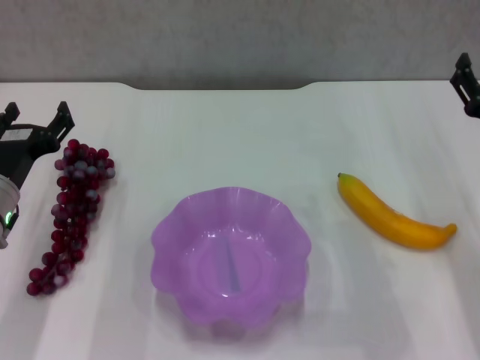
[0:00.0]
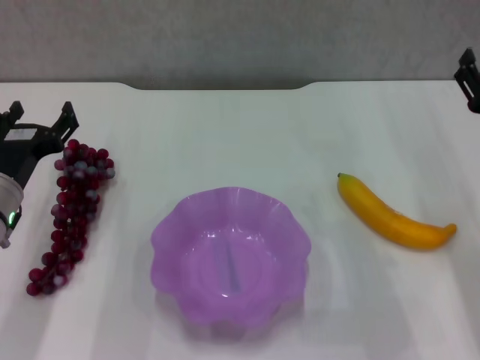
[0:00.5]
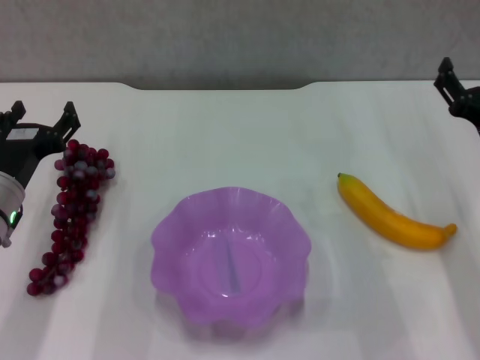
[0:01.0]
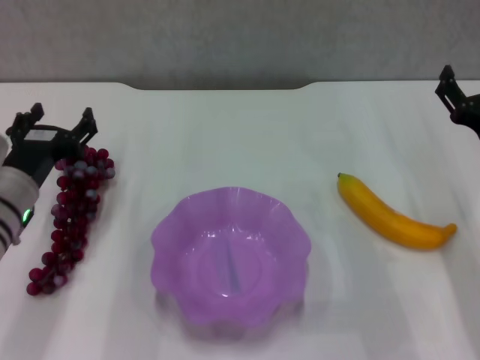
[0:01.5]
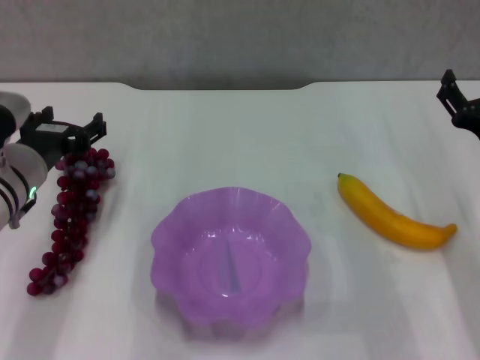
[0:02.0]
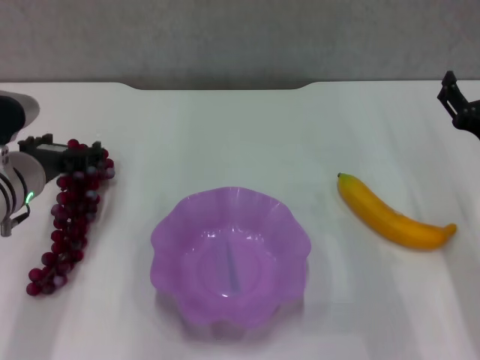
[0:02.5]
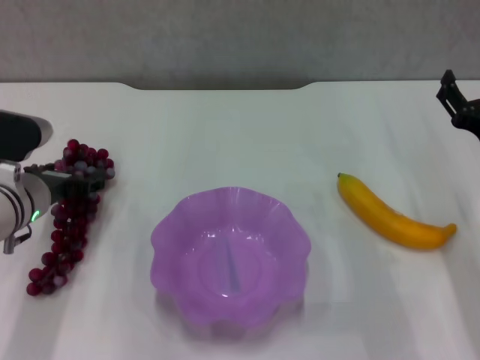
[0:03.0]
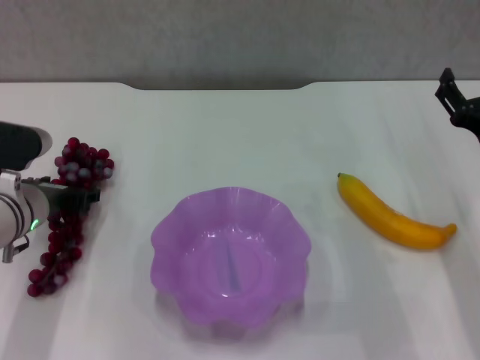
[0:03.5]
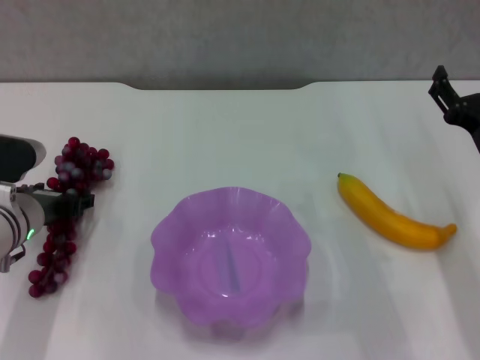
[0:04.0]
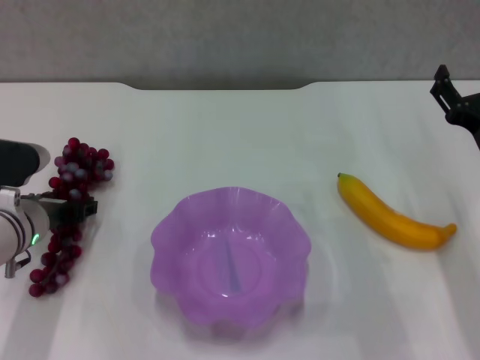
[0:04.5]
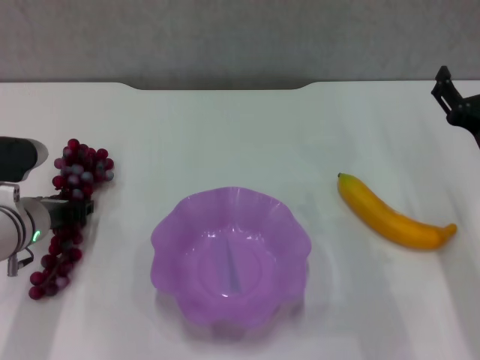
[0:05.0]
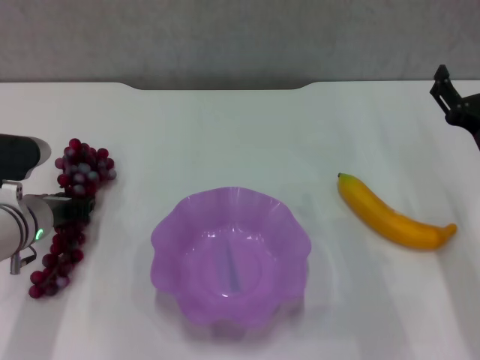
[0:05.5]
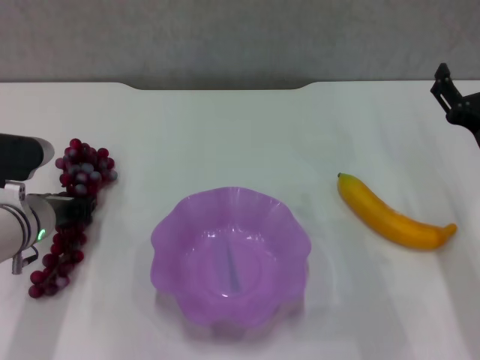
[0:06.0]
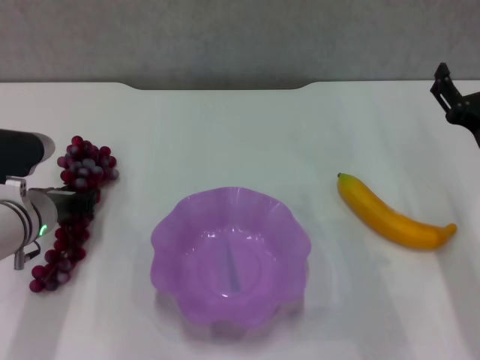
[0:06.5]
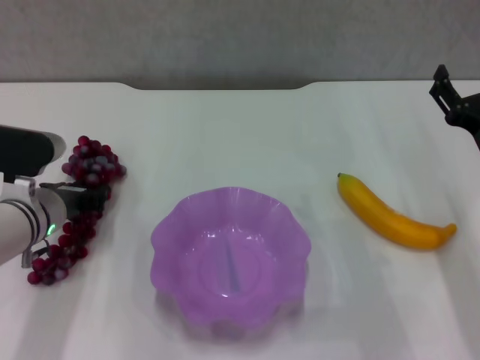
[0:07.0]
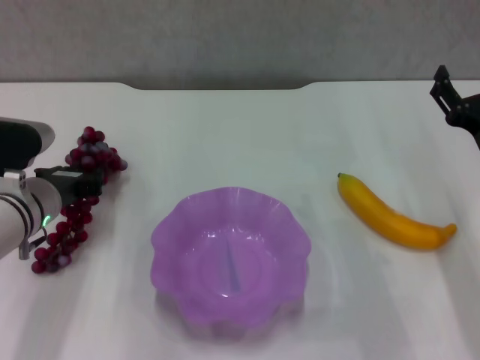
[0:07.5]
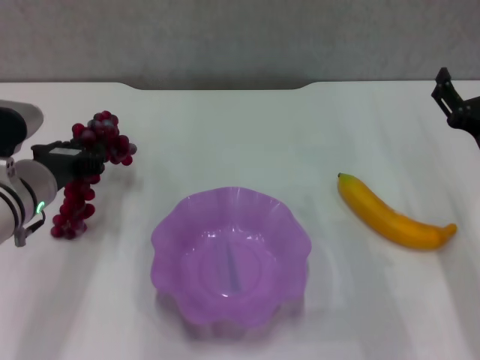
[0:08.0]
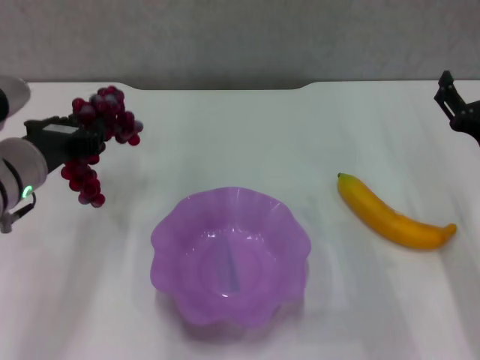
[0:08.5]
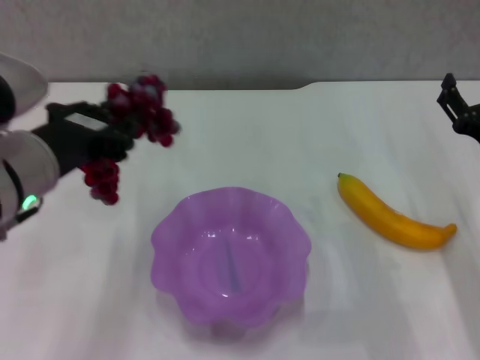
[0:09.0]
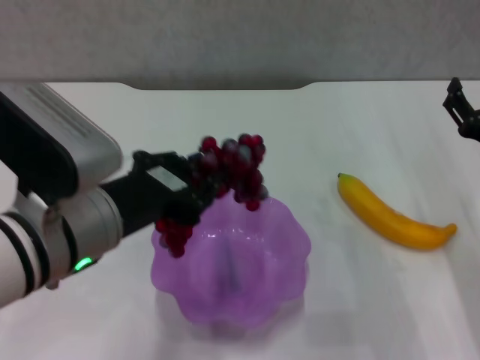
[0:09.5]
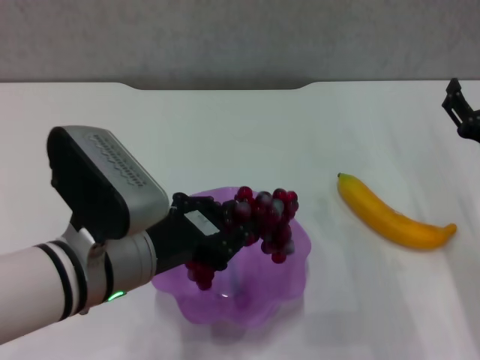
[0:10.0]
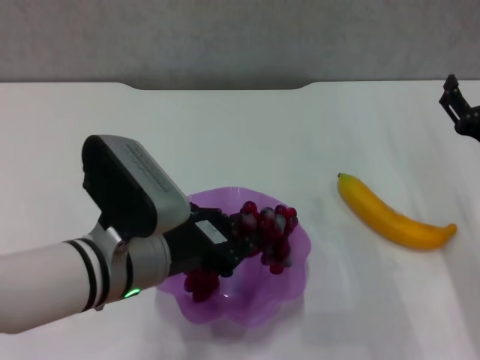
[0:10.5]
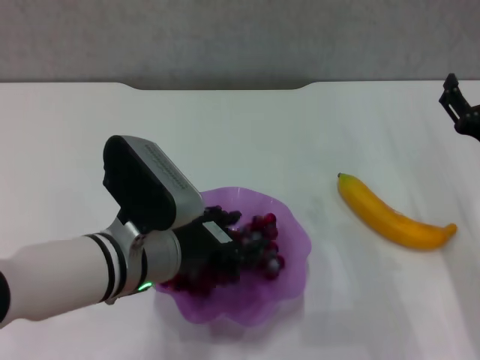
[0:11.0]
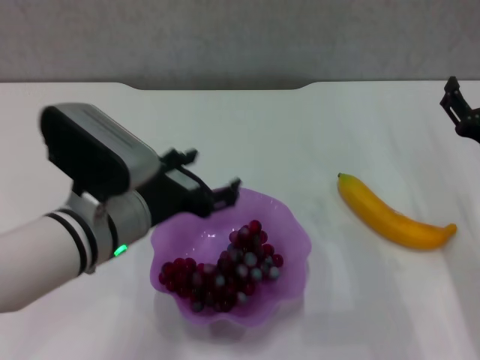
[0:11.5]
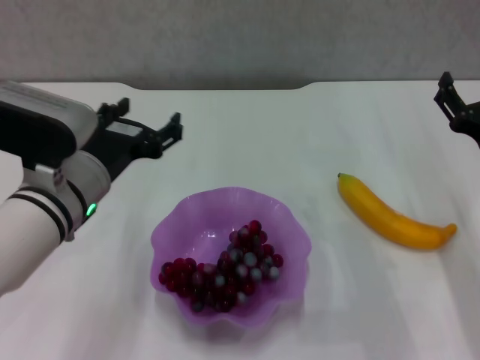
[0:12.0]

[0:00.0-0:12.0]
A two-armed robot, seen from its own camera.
Step, 0:00.0 to 0:05.0: Grasp the grape with left gripper.
Step, 0:06.0 to 0:11.0: Place the grape in the purple plate with left gripper.
0:00.0 to 0:02.0: The grippers stay close to where they were, moving slightly.
0:02.0 to 0:04.0: The left gripper is displaced downward by roughly 5 cm.
0:04.0 to 0:06.0: The left gripper closes up.
0:06.0 to 0:08.0: The left gripper ends up approximately 5 cm from where it was.
0:08.0 to 0:10.0: The left gripper is displaced backward and to the right by roughly 15 cm.
0:10.0 to 0:12.0: The left gripper heads forward, covering some 5 cm, and opens its fingers.

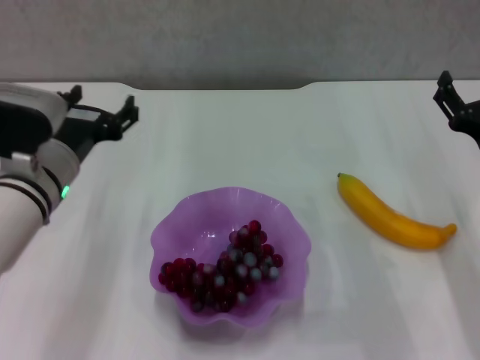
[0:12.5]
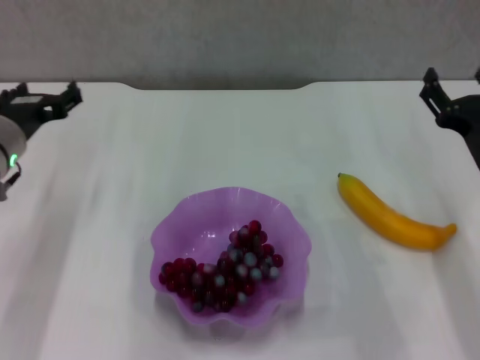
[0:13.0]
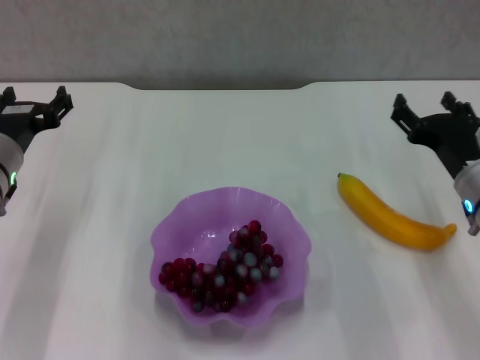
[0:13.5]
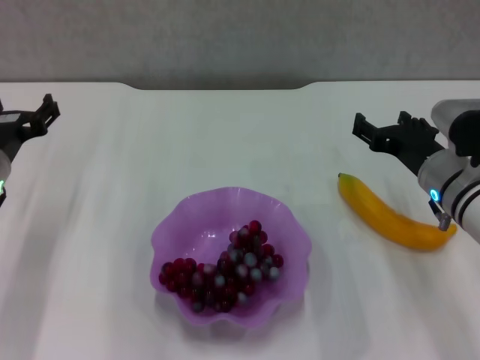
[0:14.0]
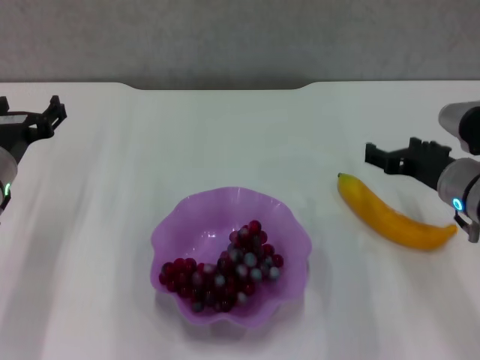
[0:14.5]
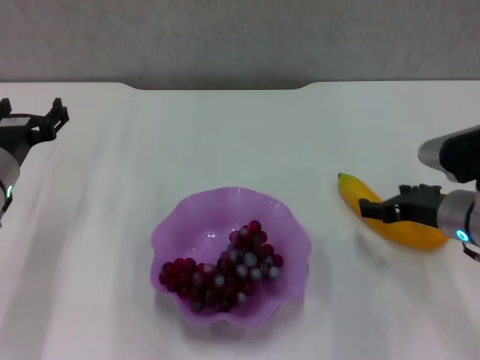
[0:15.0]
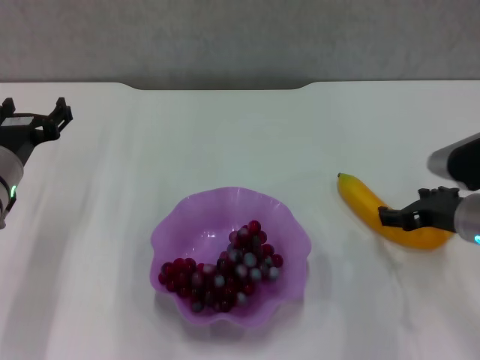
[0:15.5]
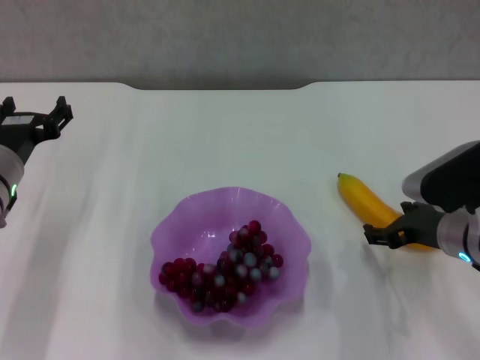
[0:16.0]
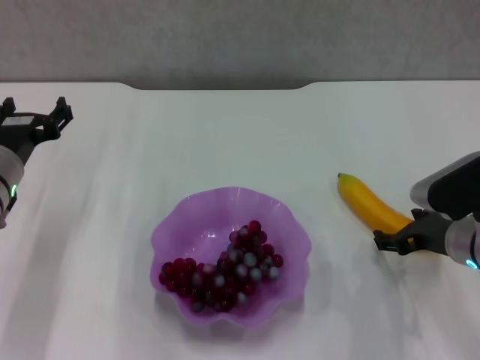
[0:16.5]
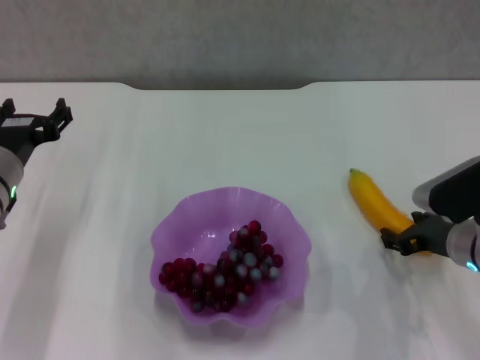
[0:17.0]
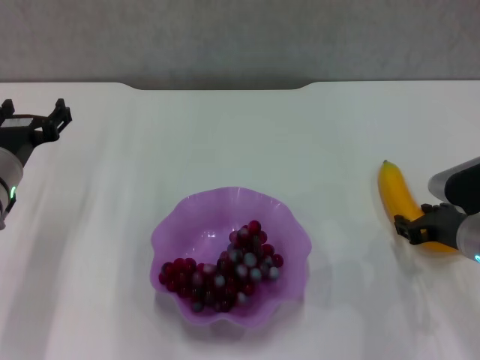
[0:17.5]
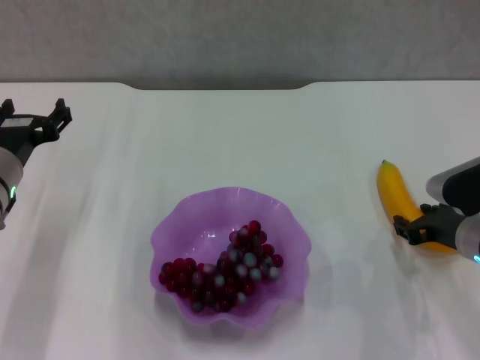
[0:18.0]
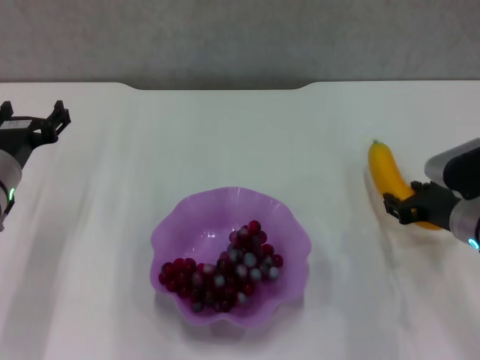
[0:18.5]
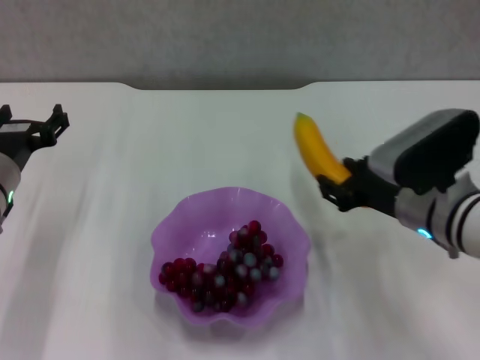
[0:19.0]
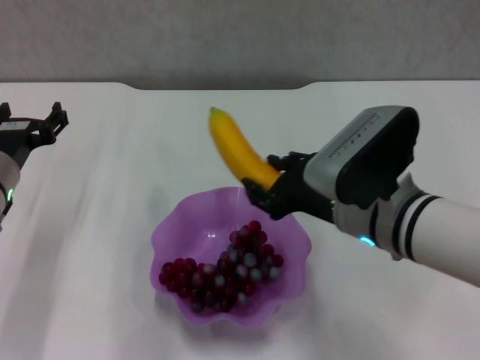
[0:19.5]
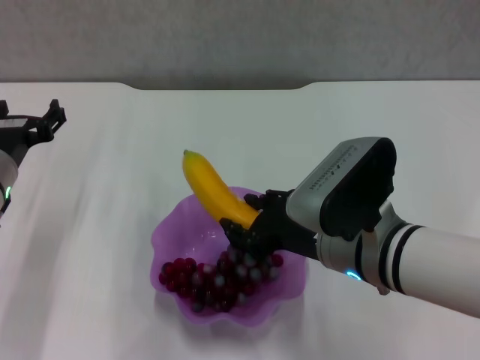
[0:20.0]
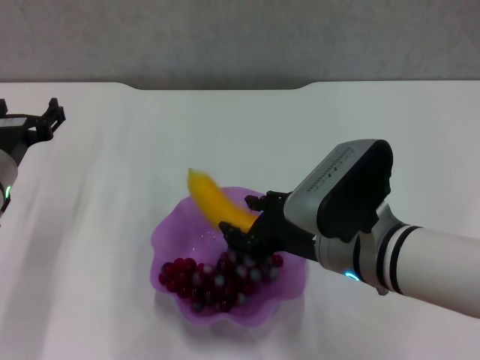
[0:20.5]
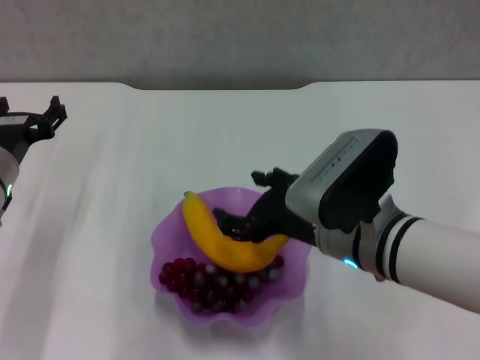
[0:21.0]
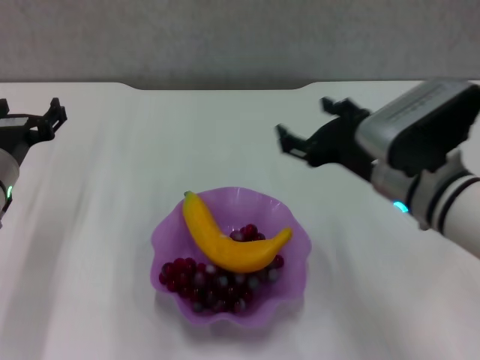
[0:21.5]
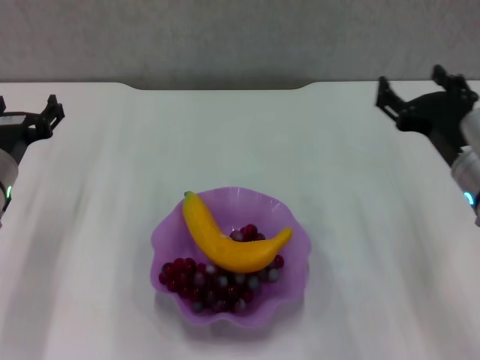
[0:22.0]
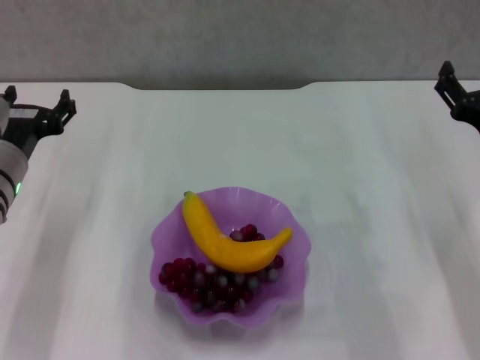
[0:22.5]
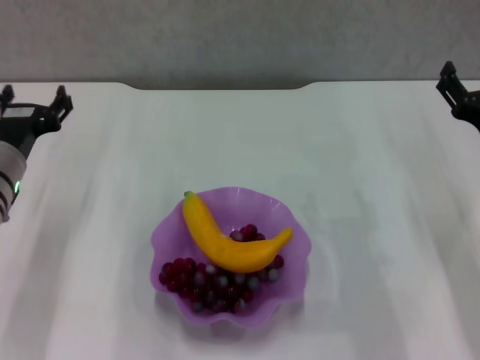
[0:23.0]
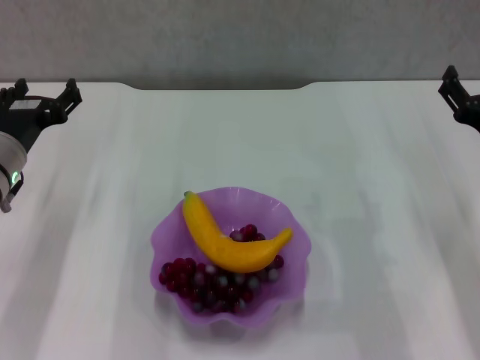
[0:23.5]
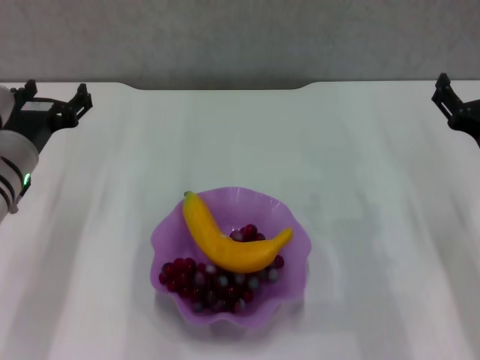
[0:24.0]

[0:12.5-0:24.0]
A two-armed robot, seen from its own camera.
Step, 0:12.5 to 0:17.5: Grasp the banana with right gripper.
Step, 0:18.0 to 0:20.5: Place the banana in the purple plate with right gripper.
0:12.5 to 0:14.5: The left gripper is displaced to the left by about 5 cm.
0:16.5 to 0:18.5: The right gripper closes.
0:18.5 to 0:20.0: The right gripper shifts about 15 cm to the left.
0:20.0 to 0:22.0: The right gripper heads to the right, covering about 10 cm, and opens its fingers.
0:22.0 to 0:24.0: The right gripper is displaced to the right by about 5 cm.

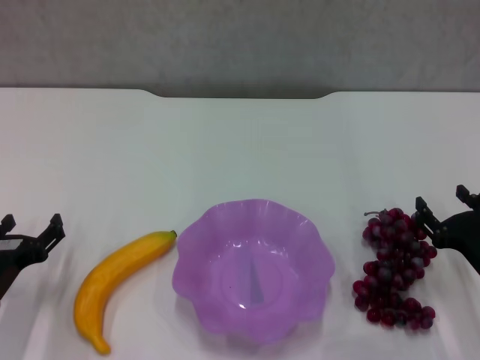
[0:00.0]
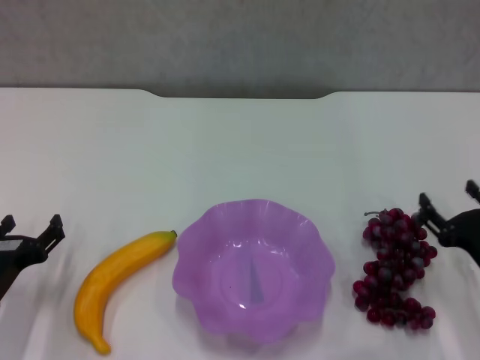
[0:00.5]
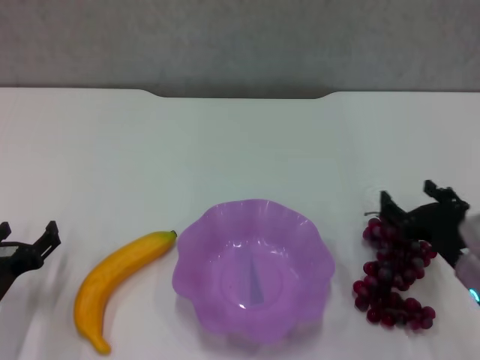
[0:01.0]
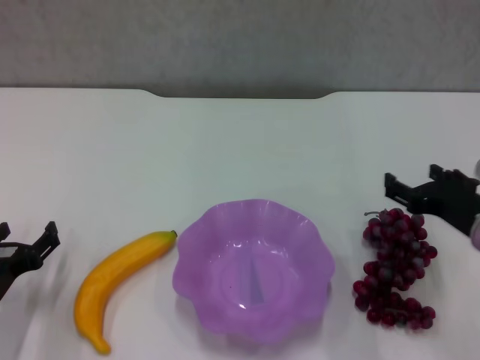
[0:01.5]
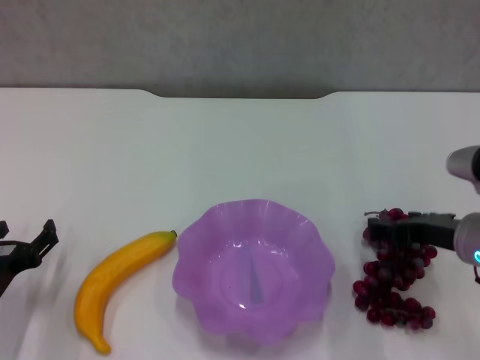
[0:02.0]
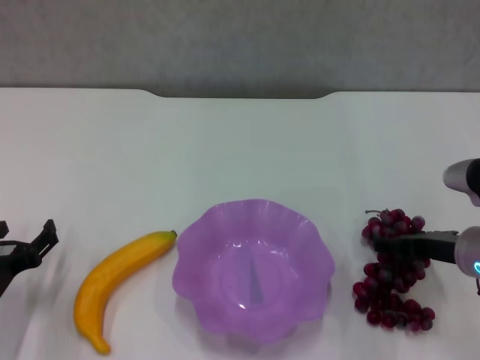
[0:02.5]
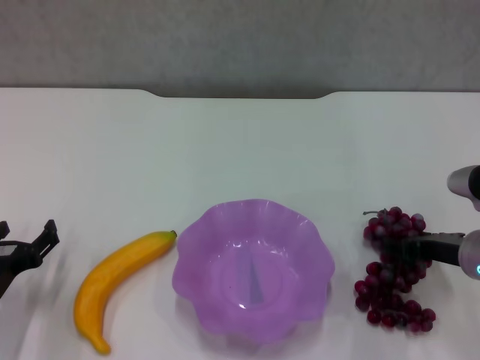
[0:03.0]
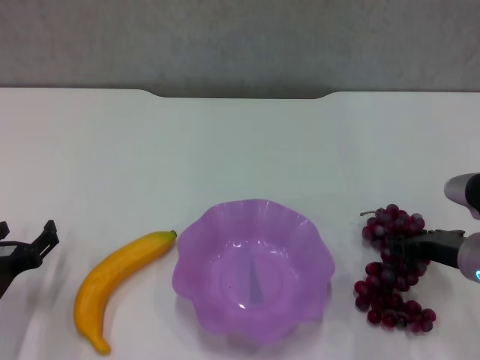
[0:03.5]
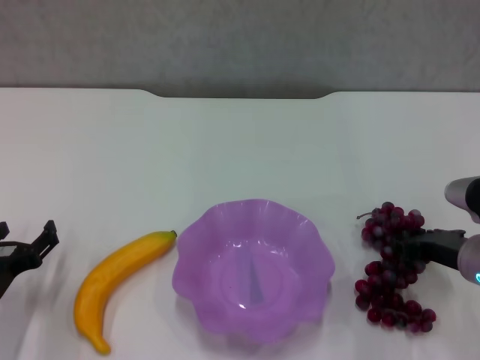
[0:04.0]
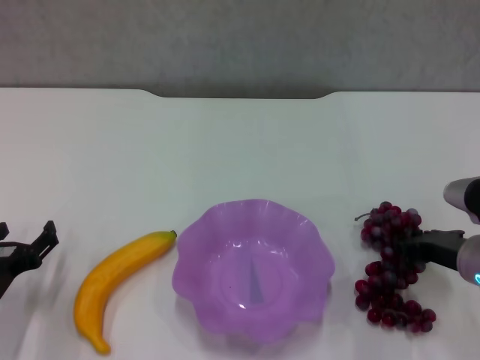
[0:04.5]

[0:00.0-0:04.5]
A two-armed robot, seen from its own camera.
Step, 0:00.0 to 0:03.5: Grasp the grape with right gripper.
0:00.0 to 0:02.0: The right gripper travels upward by approximately 5 cm.
0:02.0 to 0:04.5: The right gripper closes its fingers.
